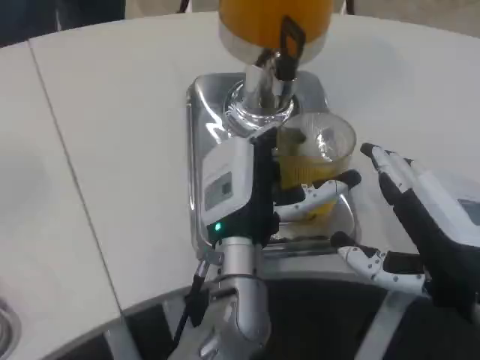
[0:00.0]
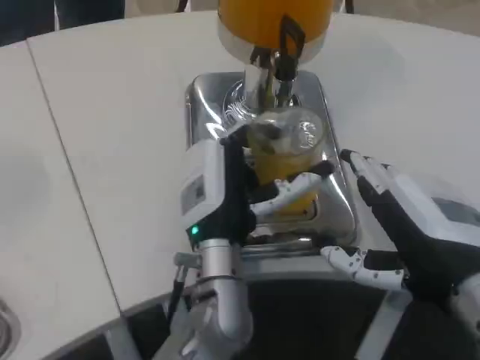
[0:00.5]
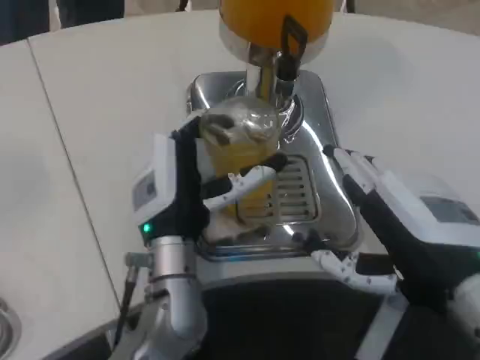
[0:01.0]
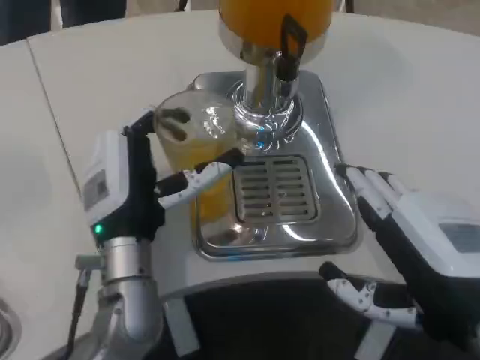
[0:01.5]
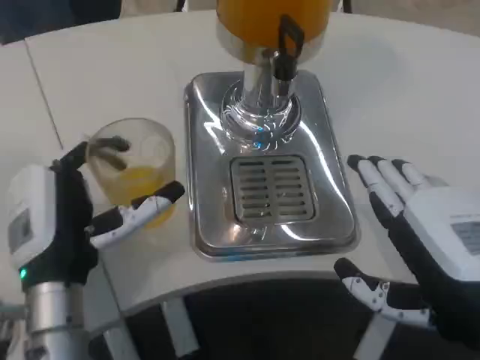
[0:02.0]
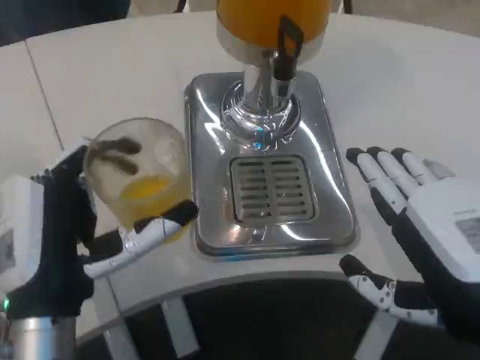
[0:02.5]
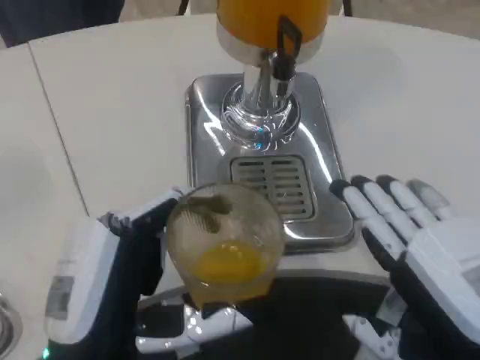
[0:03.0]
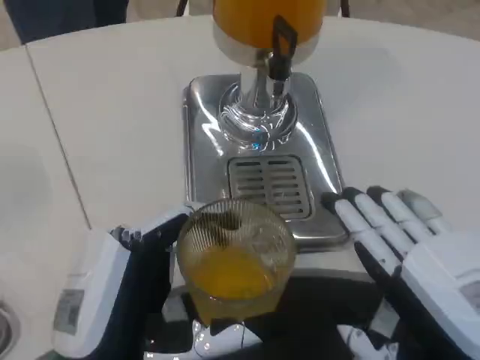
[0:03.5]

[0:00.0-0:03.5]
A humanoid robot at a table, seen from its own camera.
Task of the whole recording: Grasp the cup under the faucet to collect the drink, then remove the cup.
0:00.0 to 0:02.0: The left hand heads to the left, covering some 15 cm.
0:02.0 to 0:03.5: The left hand shifts approximately 10 cm backward.

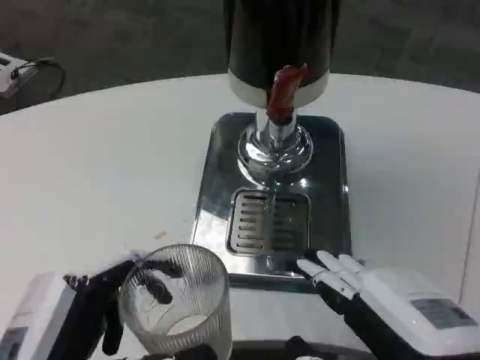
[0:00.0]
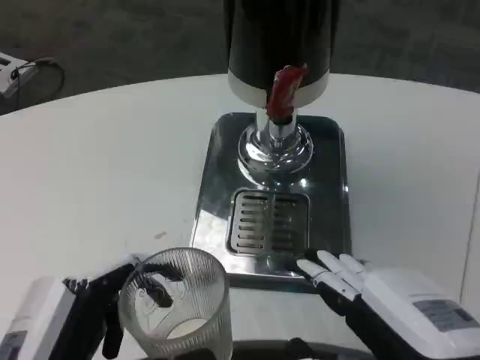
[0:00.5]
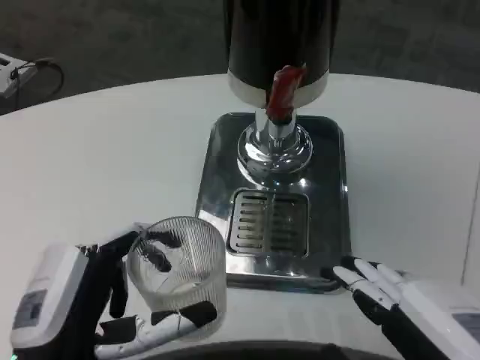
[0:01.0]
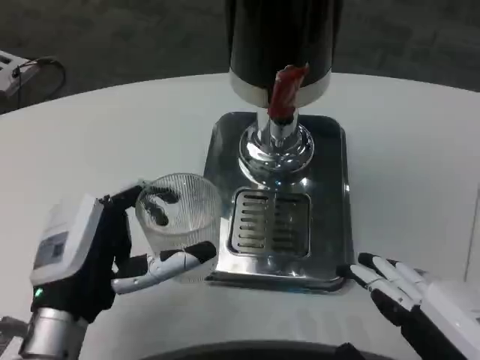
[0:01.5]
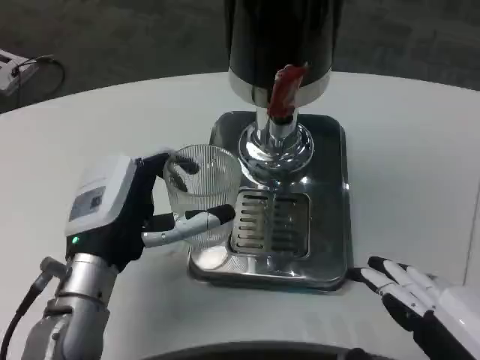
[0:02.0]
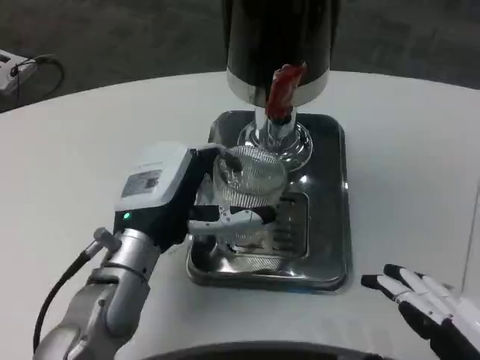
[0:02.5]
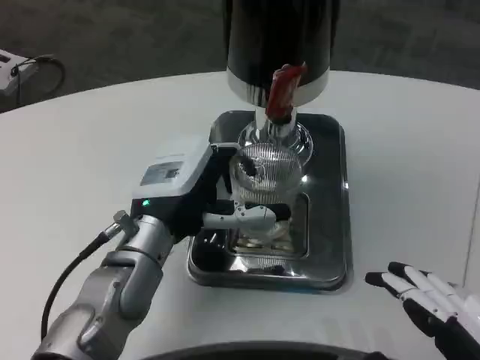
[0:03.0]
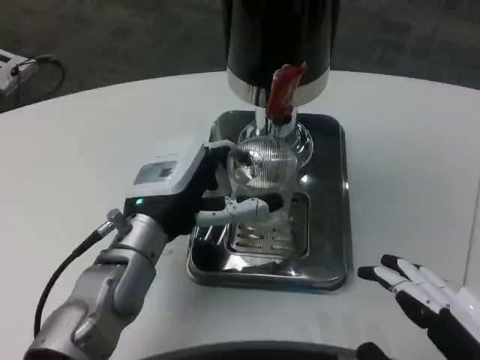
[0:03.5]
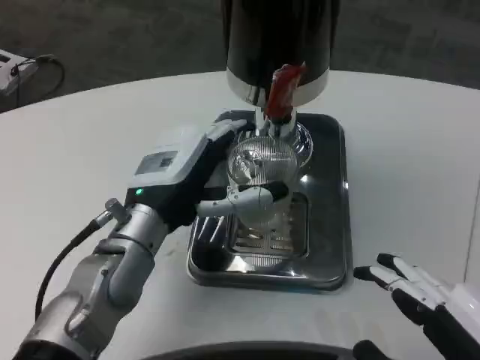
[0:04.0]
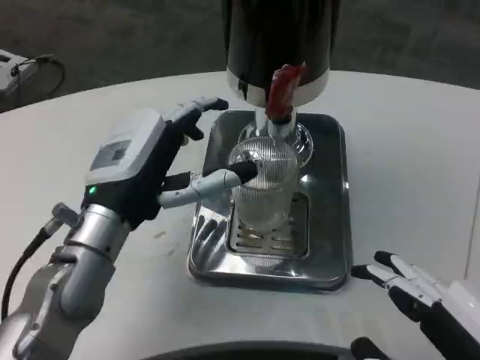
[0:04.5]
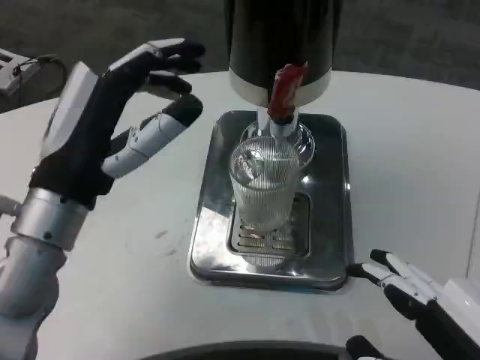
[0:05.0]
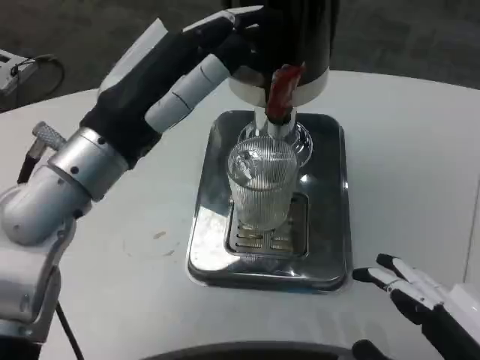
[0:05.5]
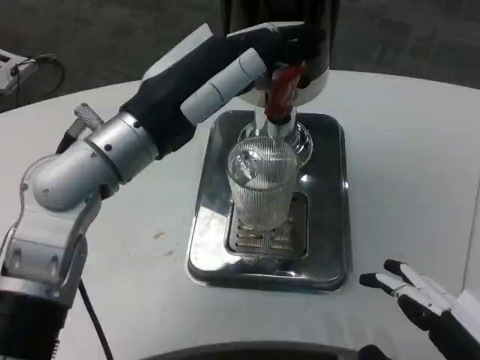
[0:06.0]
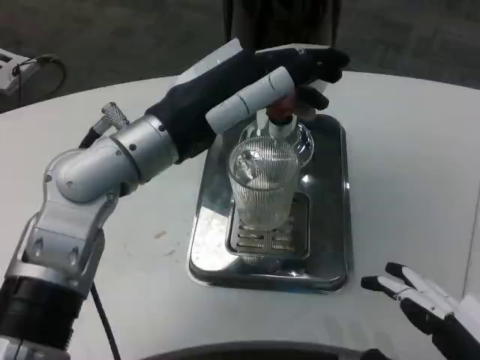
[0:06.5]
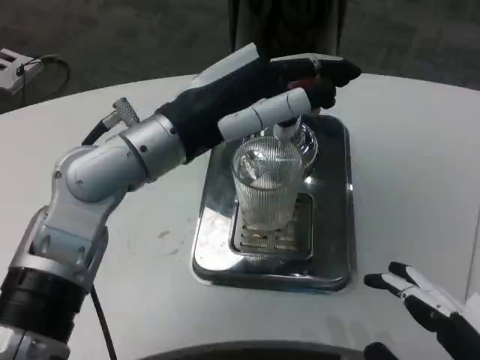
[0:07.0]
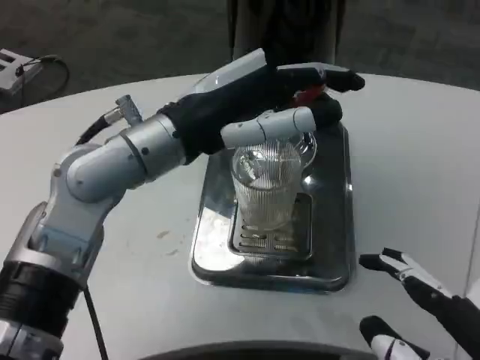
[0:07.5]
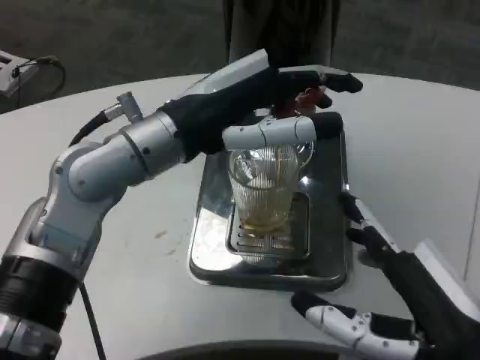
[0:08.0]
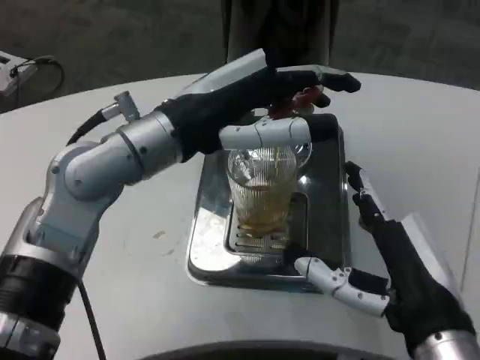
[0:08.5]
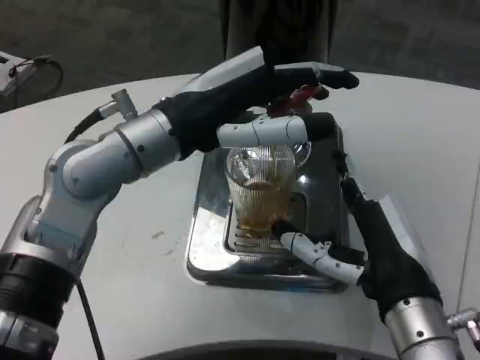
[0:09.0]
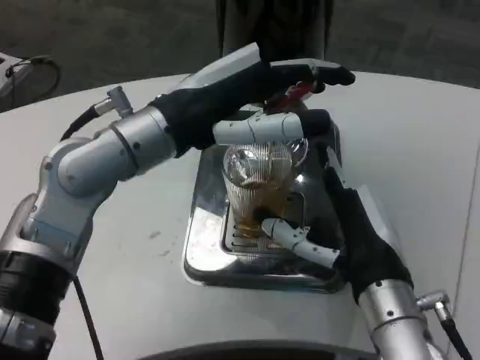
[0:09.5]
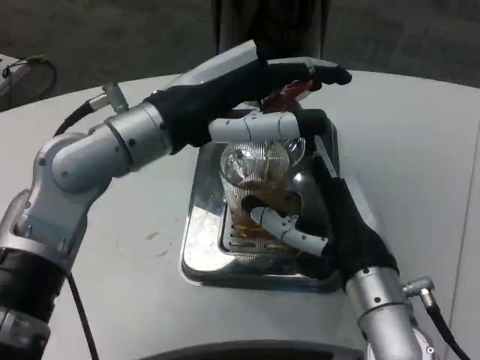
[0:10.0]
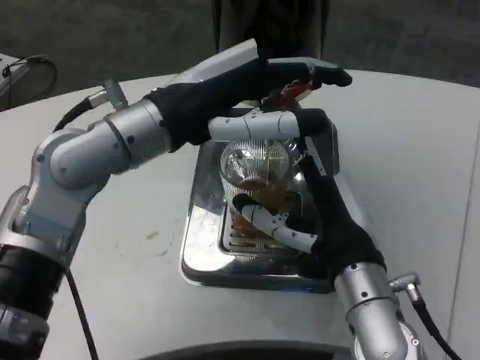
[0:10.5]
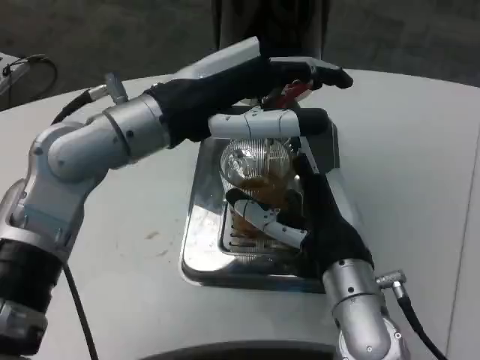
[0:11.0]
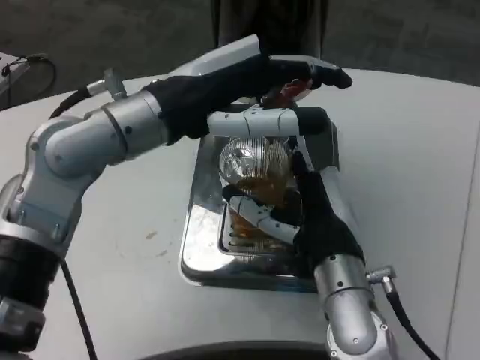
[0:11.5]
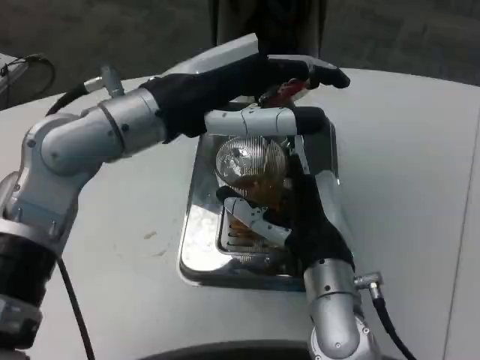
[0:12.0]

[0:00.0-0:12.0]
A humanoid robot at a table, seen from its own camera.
Task of the whole recording: Grasp the cup under the faucet to collect the drink, then remove the cup.
0:00.0 to 0:02.0: The left hand moves forward, some 15 cm.
0:02.0 to 0:04.0: The left hand moves roughly 5 cm.
0:04.0 to 0:06.0: The left hand shifts about 10 cm upward.
0:06.0 to 0:08.0: The right hand travels forward by approximately 5 cm.
0:08.0 to 0:10.0: The right hand travels forward and to the left by about 15 cm.
0:10.0 to 0:12.0: The right hand shifts by approximately 5 cm.

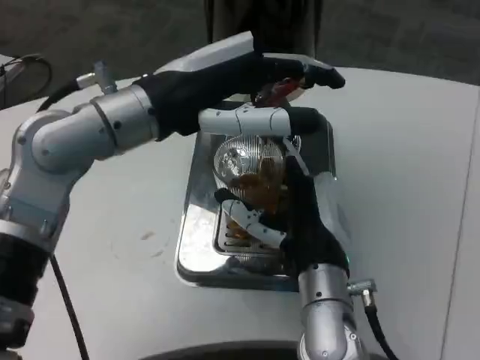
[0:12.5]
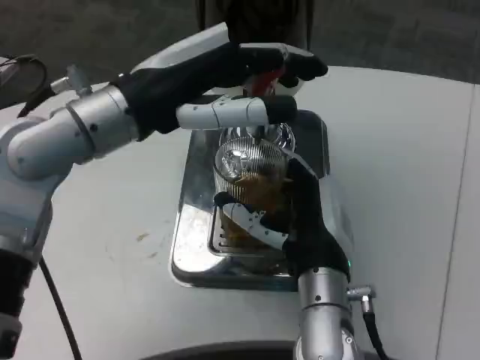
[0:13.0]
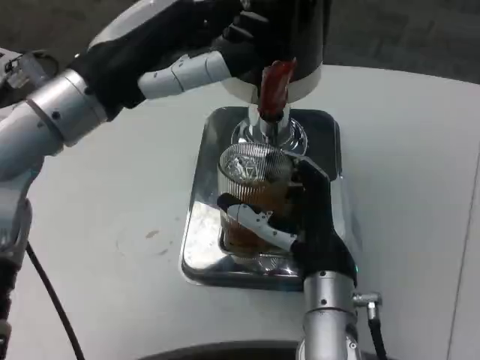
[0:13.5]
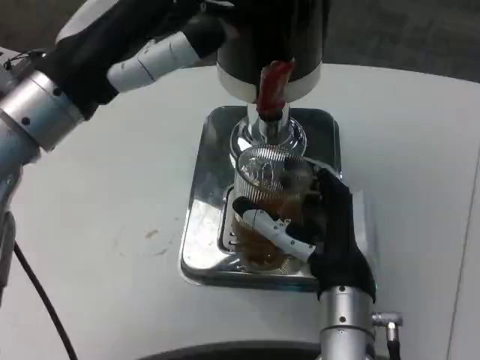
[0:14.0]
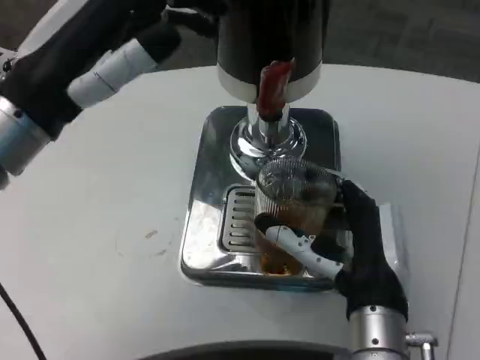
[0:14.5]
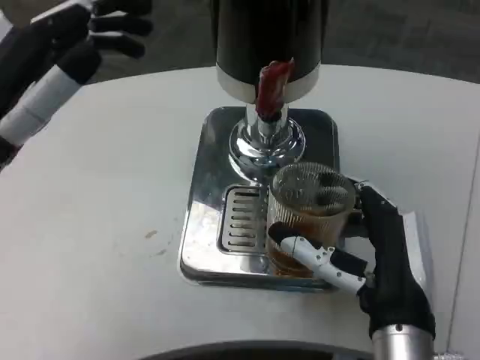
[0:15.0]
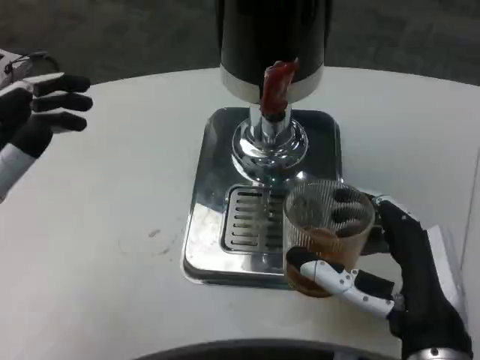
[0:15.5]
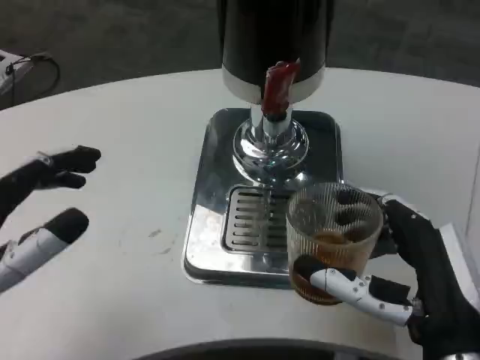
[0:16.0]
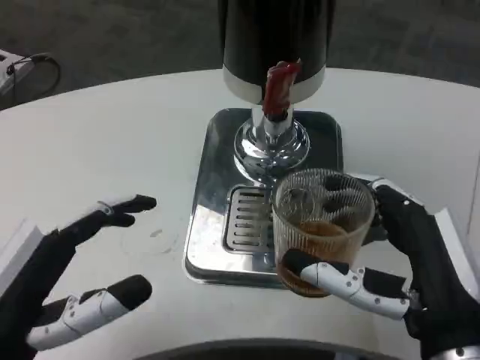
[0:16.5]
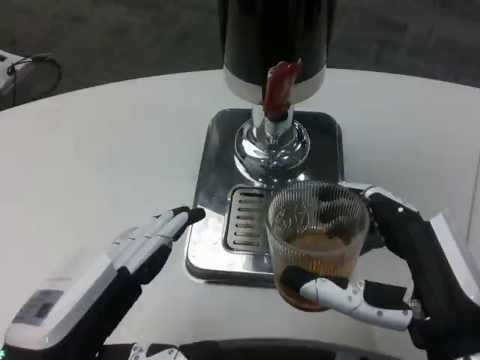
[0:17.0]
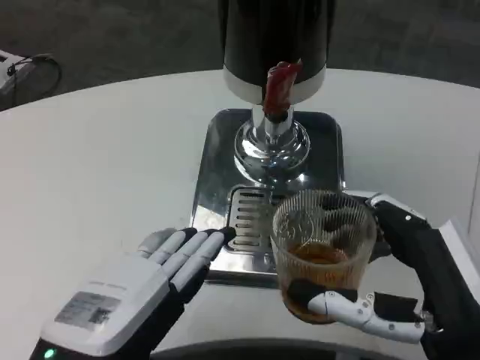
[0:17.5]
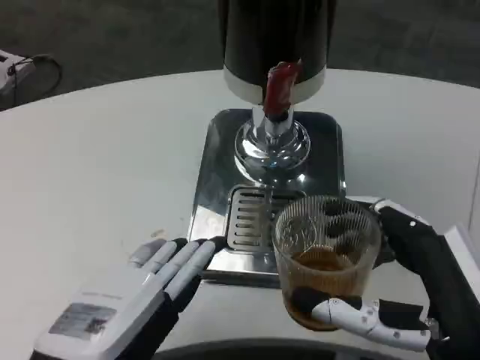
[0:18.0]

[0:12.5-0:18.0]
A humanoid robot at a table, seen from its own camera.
Task of the whole recording: Grasp the cup under the faucet to collect the drink, then remove the cup.
0:12.5 to 0:14.5: The left hand travels to the left by roughly 5 cm; the right hand ends up roughly 5 cm from where it was.
0:14.5 to 0:16.0: The left hand shifts approximately 15 cm downward and backward; the right hand heads backward and to the right, covering roughly 10 cm.
0:16.0 to 0:18.0: The left hand heads to the right, covering roughly 10 cm.

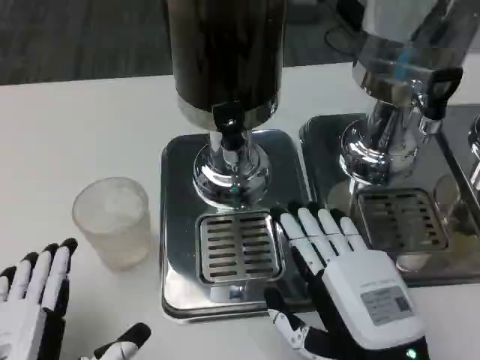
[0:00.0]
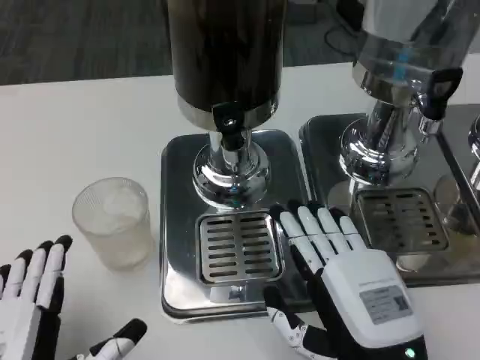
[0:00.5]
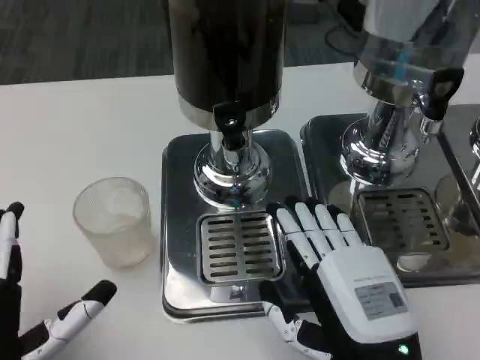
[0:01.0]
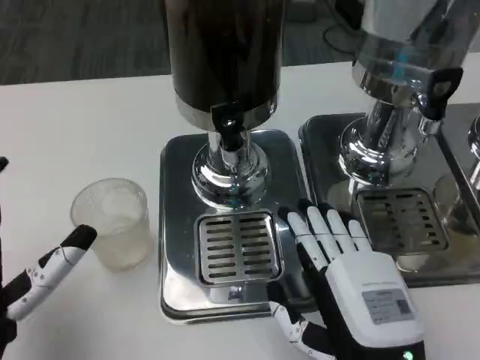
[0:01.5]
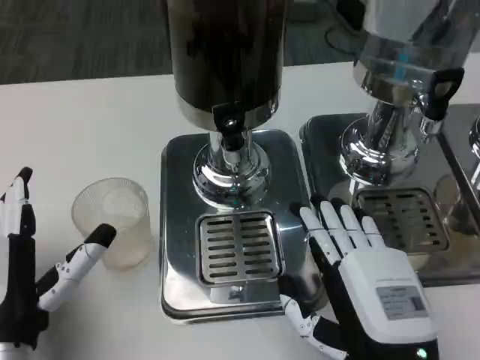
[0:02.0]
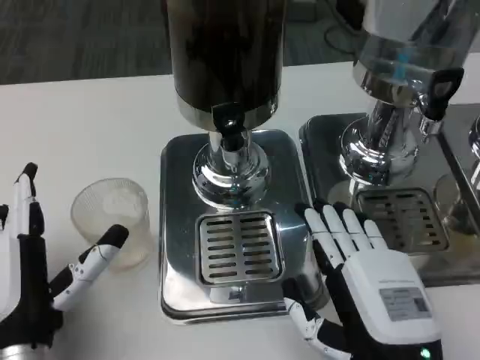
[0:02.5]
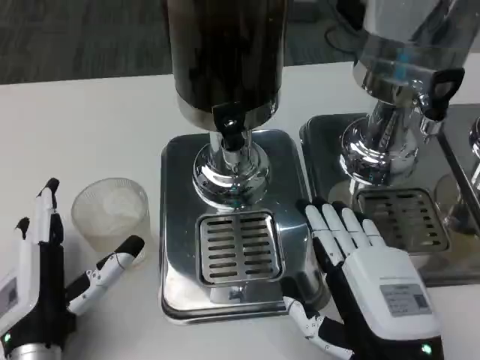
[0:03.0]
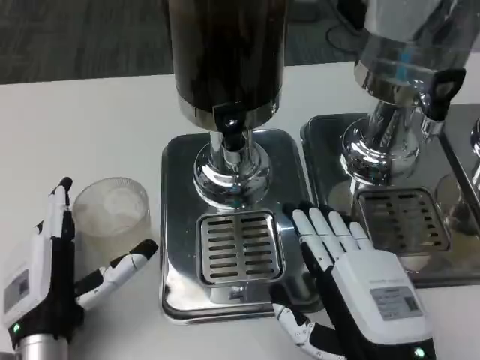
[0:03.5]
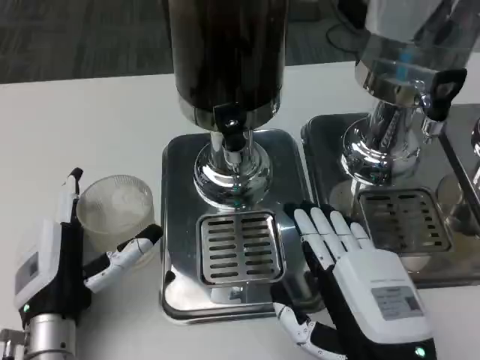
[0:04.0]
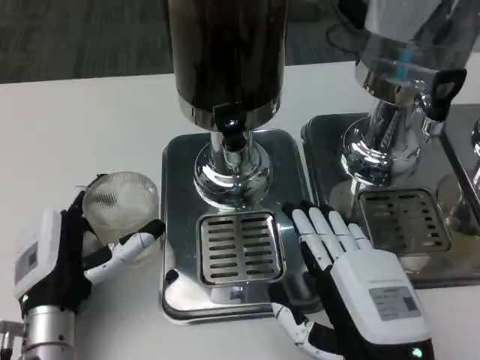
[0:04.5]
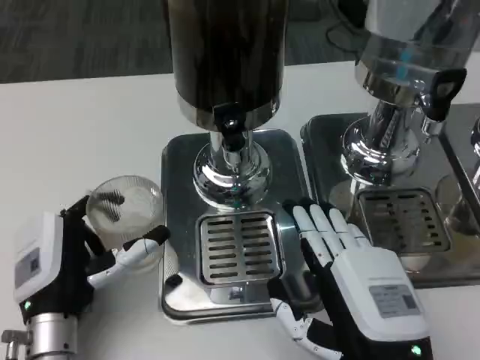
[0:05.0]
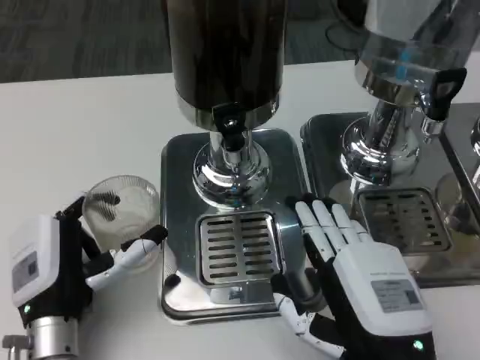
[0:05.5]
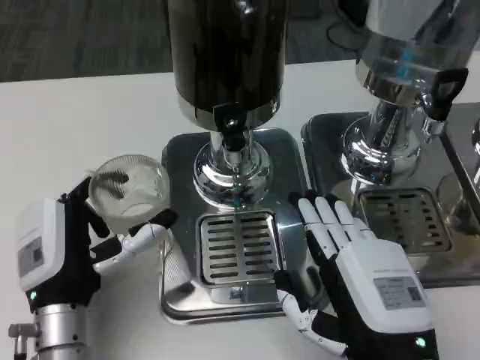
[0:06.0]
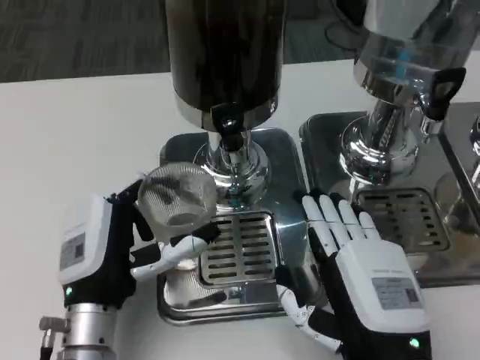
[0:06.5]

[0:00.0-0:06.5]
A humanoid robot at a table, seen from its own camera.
Task of the whole recording: Grasp the cup under the faucet to collect the drink, then remove the cup.
0:00.0 to 0:02.0: The left hand is displaced forward by about 10 cm.
0:02.0 to 0:04.5: The left hand shifts by roughly 5 cm.
